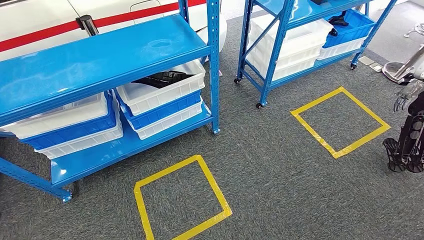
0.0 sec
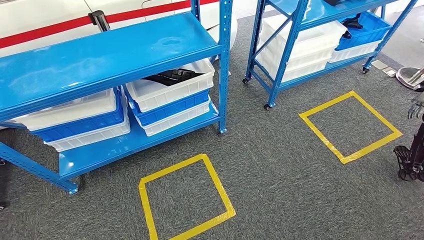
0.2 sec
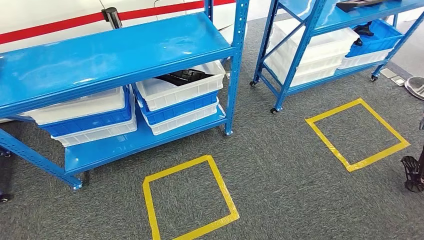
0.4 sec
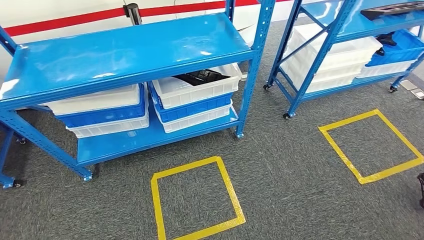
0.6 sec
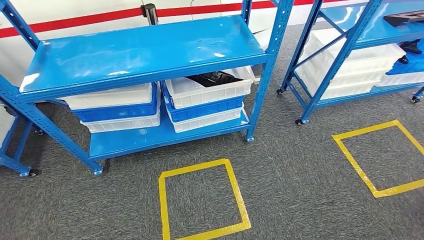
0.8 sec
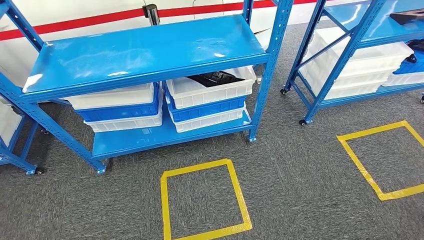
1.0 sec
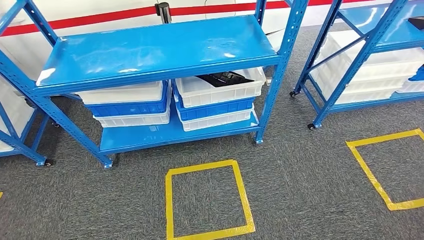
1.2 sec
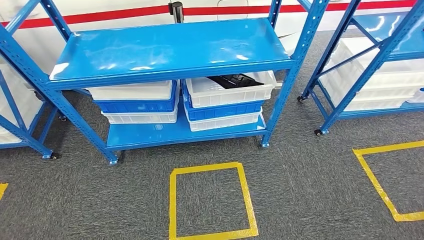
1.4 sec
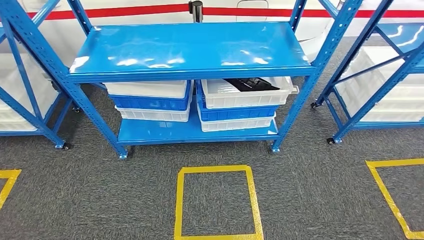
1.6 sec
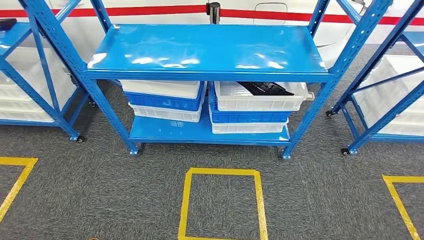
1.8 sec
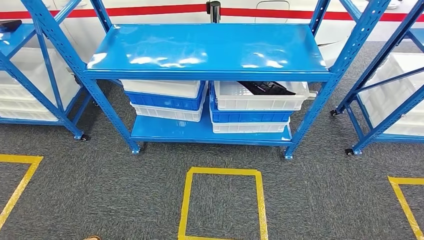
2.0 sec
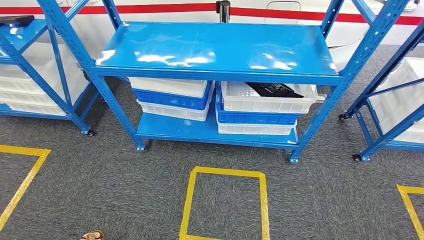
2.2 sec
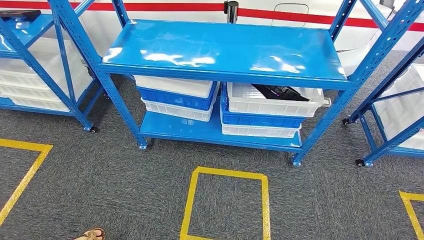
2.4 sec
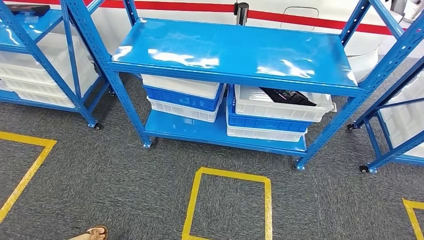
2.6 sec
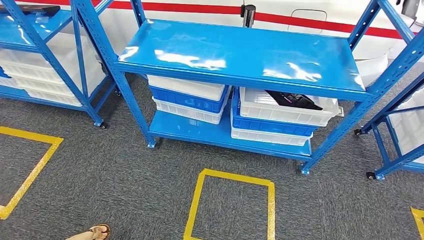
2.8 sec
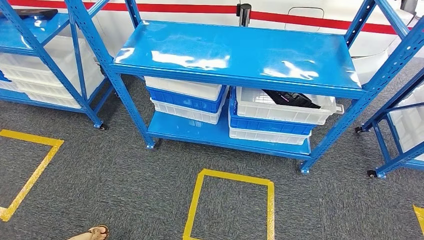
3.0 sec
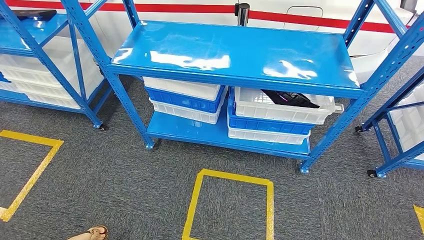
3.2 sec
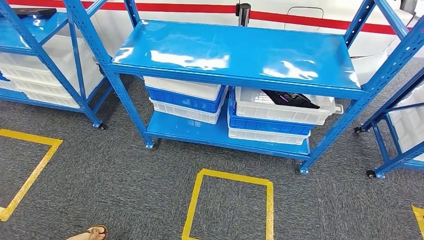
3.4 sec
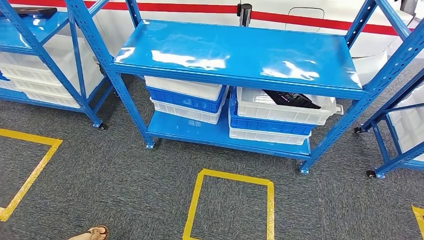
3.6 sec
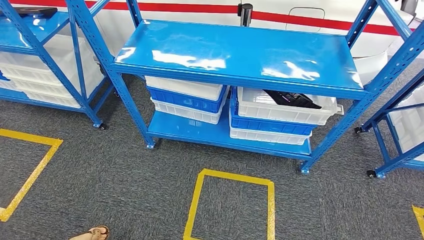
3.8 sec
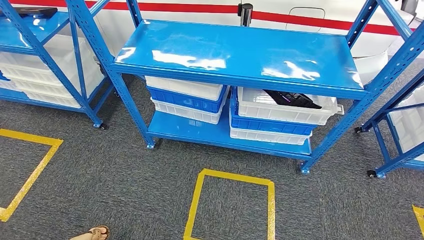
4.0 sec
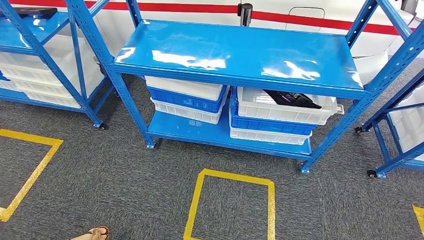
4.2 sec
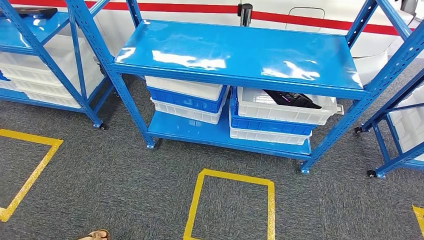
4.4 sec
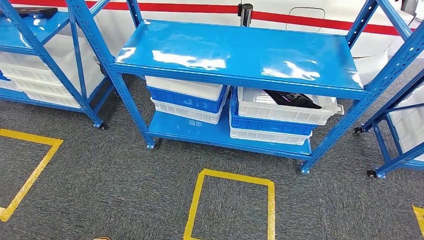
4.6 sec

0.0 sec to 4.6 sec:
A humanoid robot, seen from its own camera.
Step, 0.0 sec to 4.6 sec: Move to the initial position of the shelf.

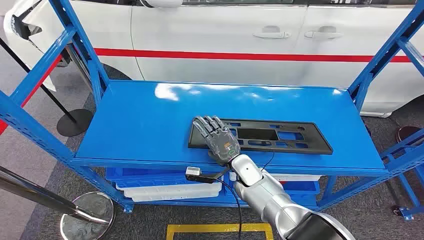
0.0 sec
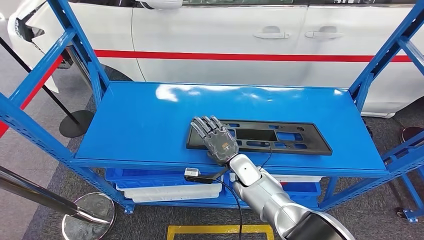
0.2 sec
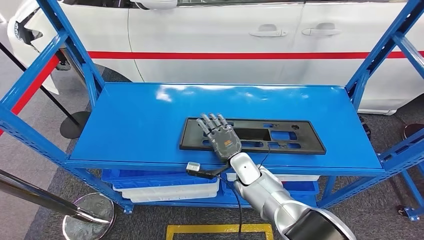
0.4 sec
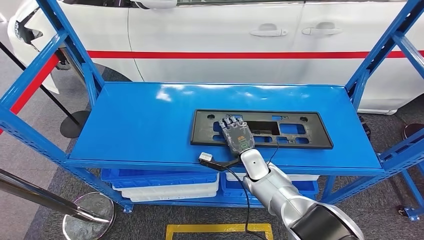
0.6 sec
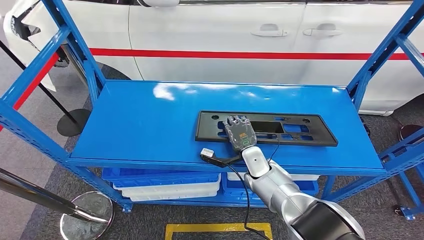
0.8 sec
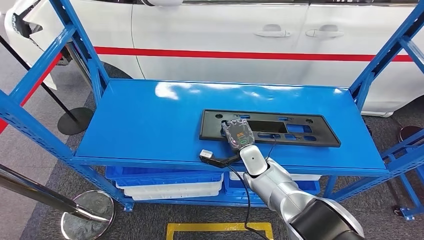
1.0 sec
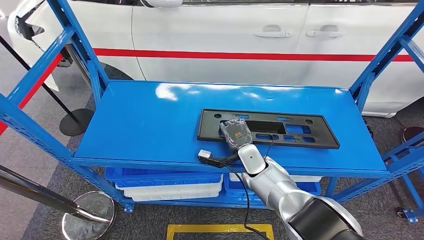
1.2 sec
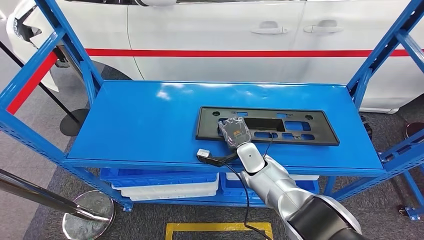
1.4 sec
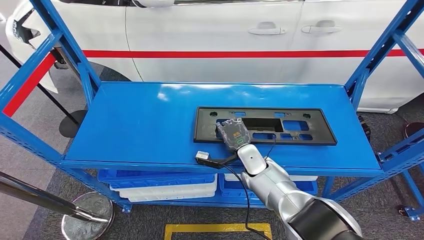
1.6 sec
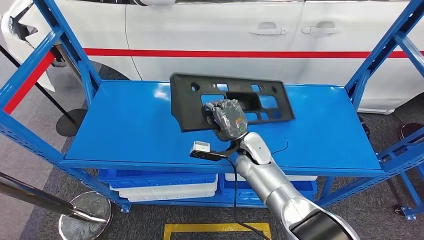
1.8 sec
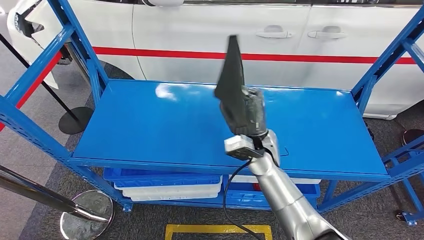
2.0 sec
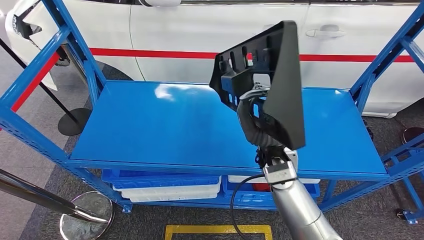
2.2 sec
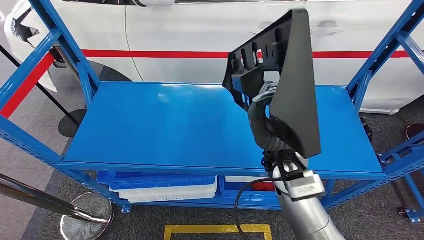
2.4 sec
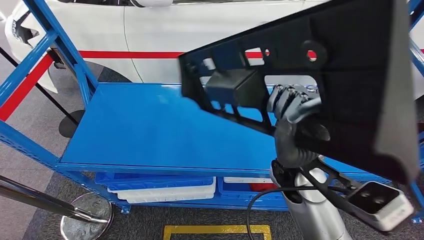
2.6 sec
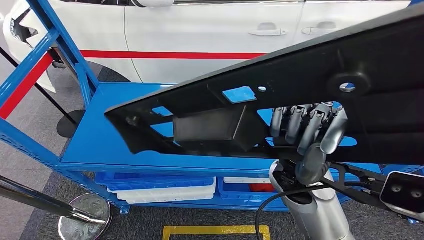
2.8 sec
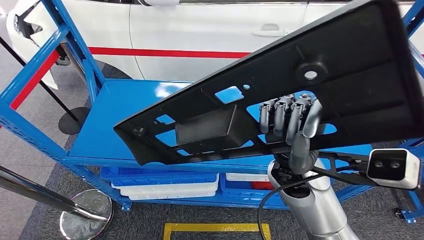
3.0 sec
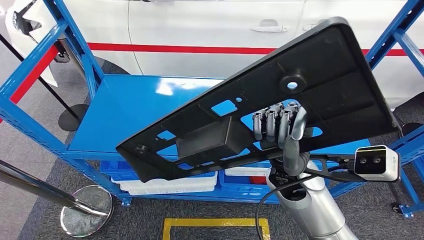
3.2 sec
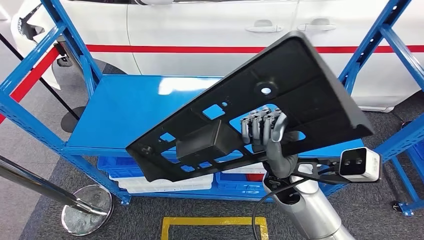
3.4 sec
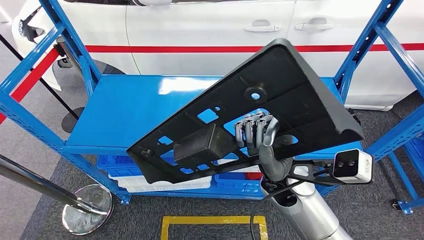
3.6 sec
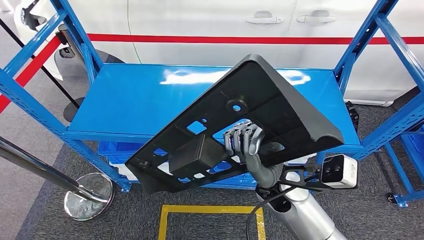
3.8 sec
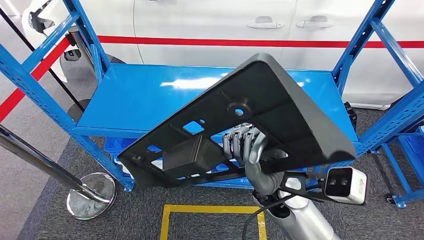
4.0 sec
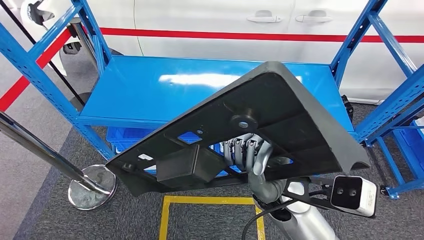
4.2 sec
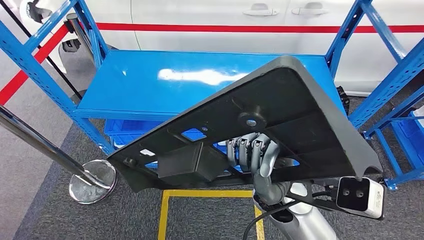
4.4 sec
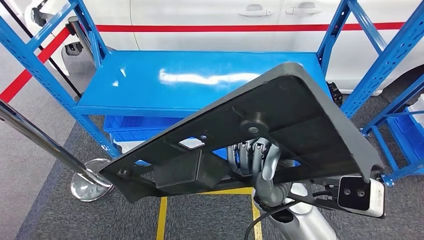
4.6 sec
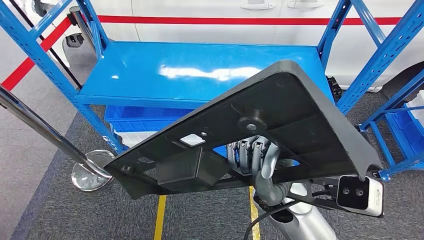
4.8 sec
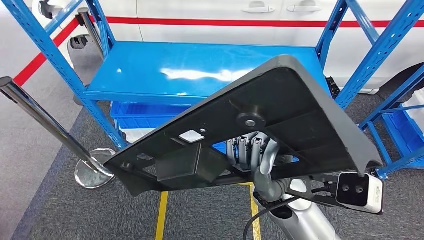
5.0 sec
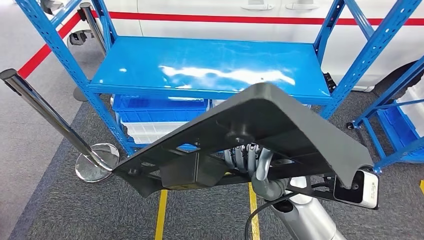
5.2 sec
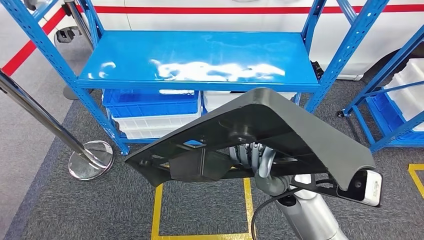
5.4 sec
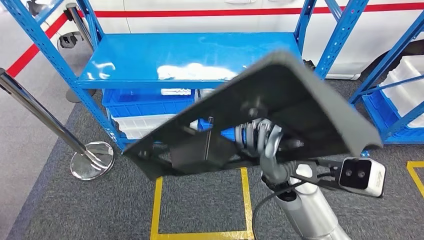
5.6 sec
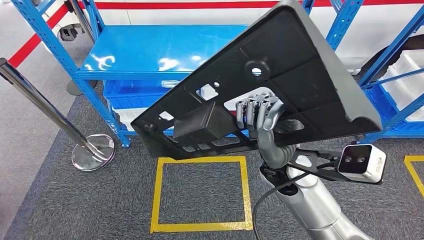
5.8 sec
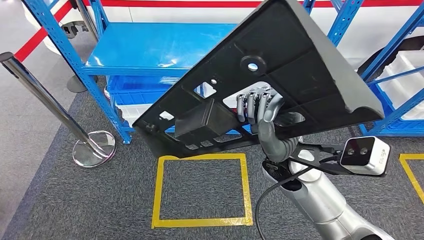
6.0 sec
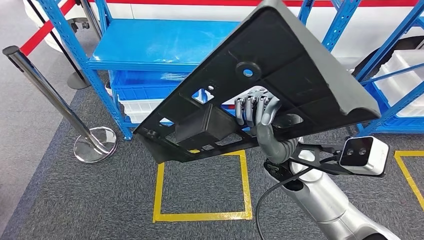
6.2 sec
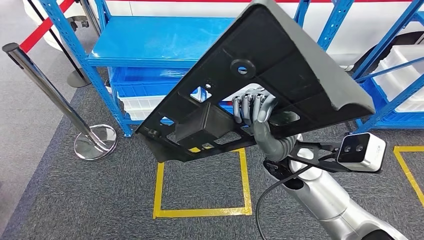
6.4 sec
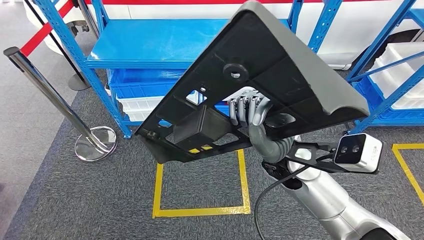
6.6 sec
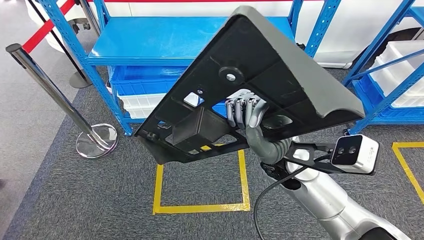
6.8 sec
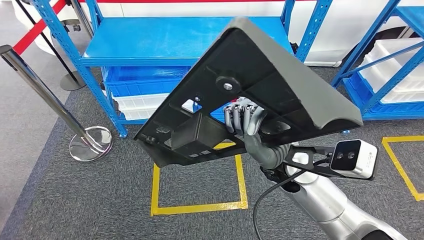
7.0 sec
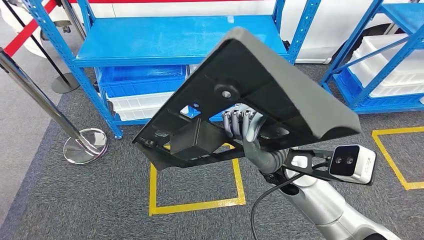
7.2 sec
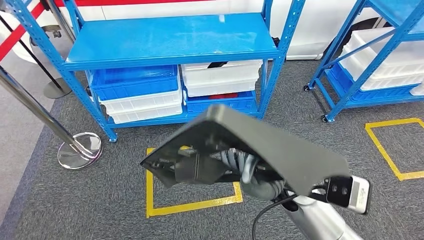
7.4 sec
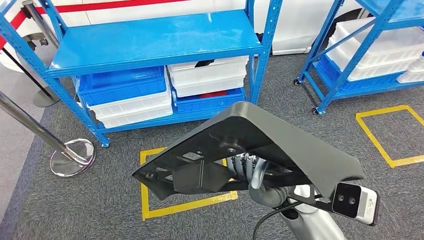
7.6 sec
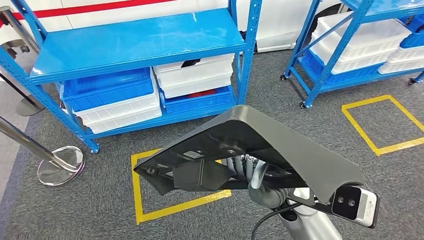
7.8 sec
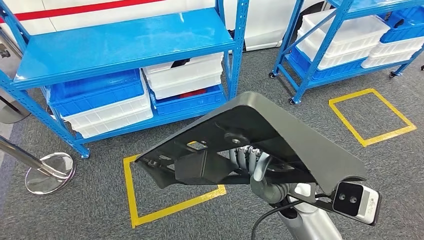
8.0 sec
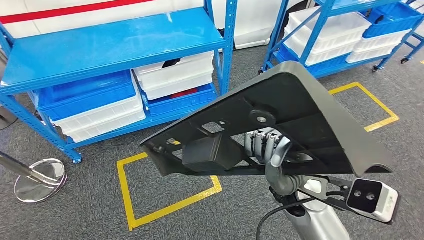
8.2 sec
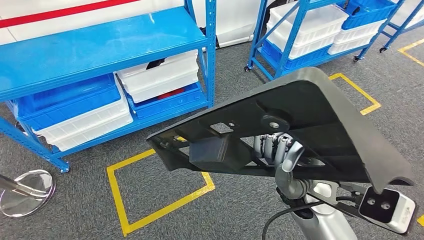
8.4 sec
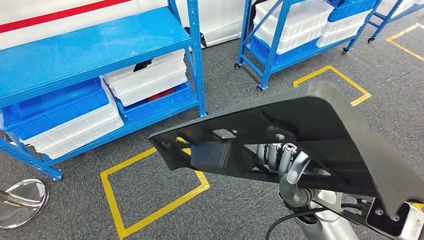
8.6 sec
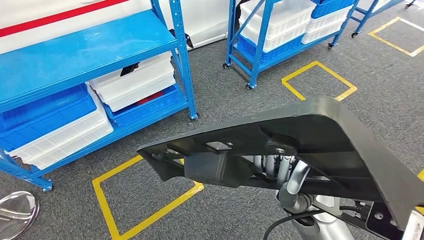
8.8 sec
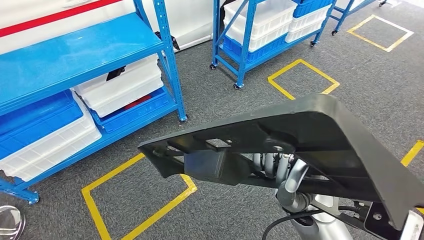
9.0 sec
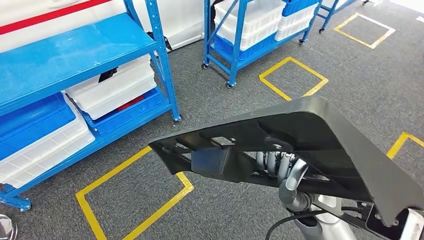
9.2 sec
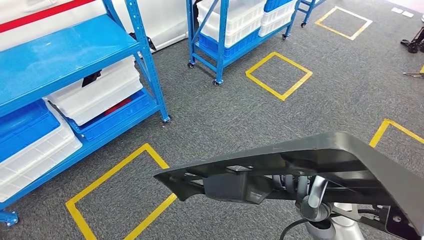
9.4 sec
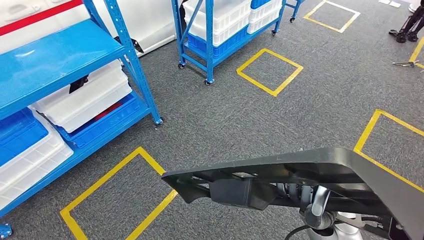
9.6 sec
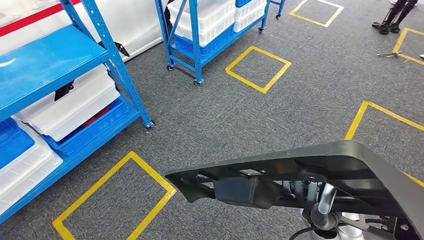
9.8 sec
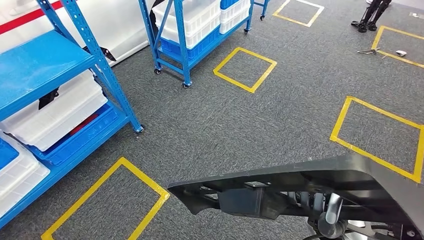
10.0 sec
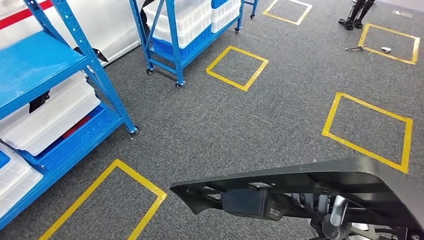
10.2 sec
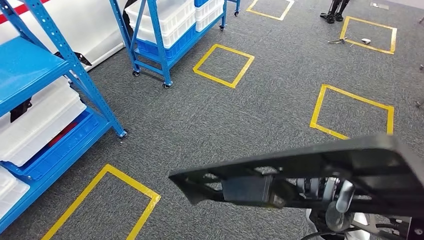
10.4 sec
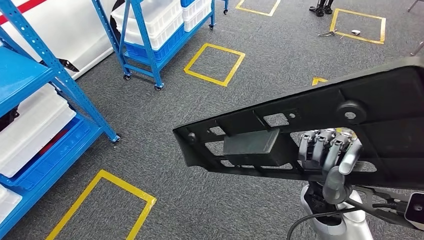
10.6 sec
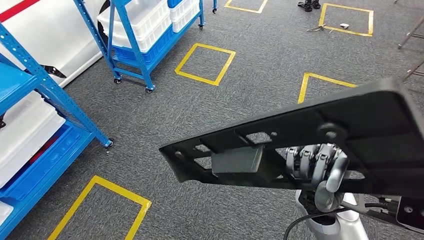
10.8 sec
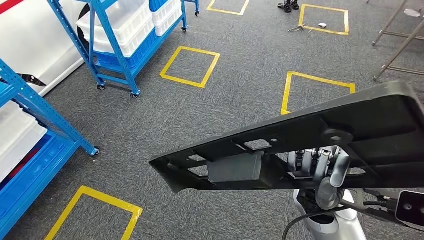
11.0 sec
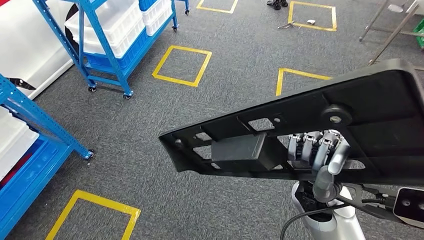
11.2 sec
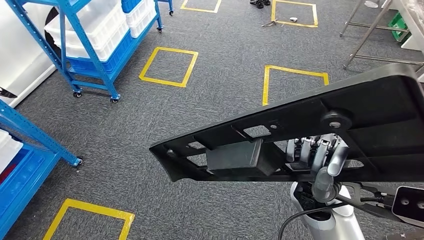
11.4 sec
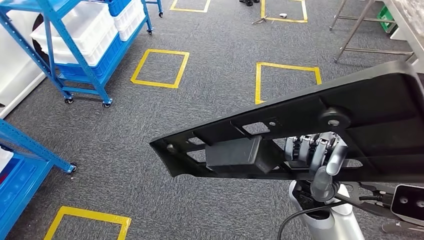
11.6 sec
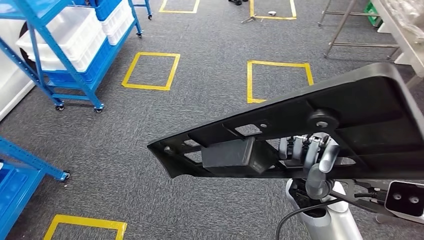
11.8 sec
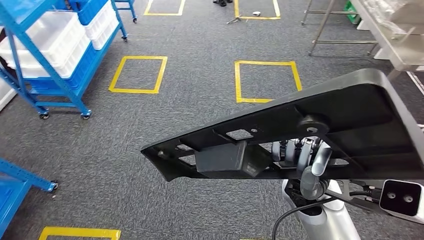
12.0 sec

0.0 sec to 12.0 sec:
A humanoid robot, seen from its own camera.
Step, 0.0 sec to 3.0 sec: Pick up the large material from the shelf.
